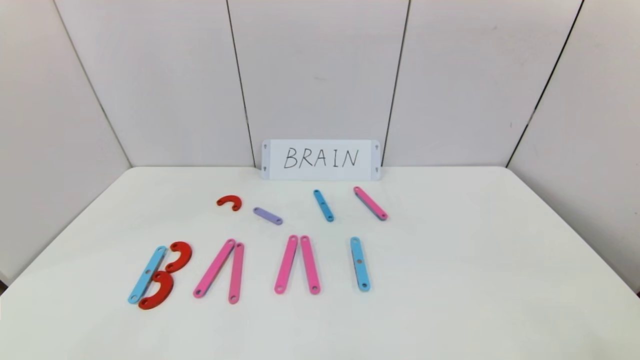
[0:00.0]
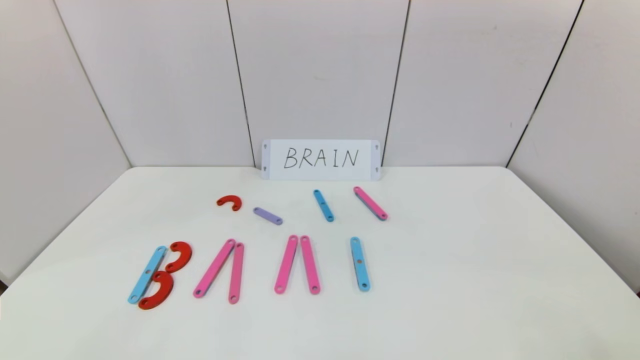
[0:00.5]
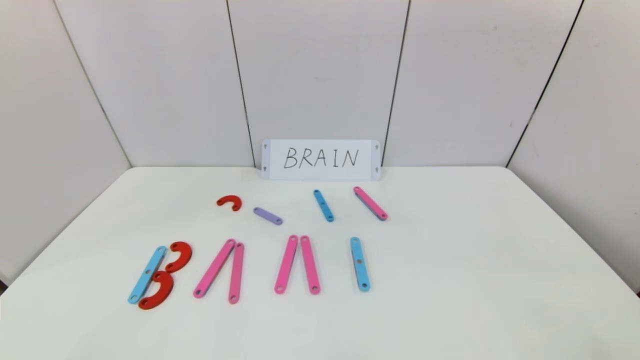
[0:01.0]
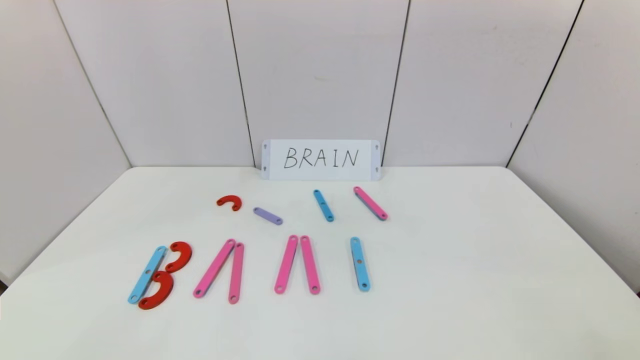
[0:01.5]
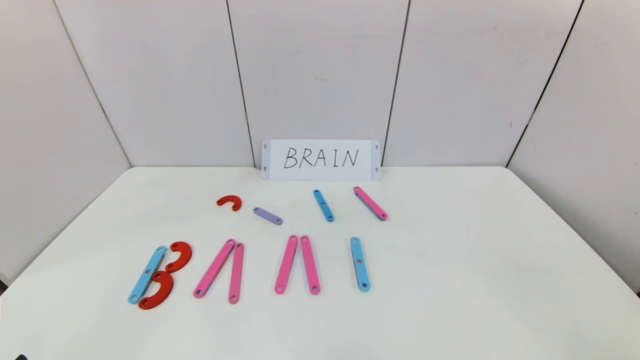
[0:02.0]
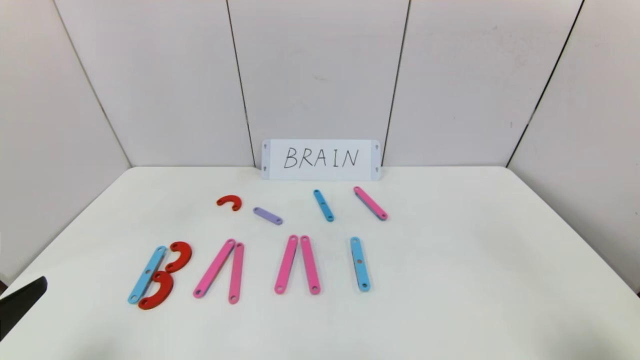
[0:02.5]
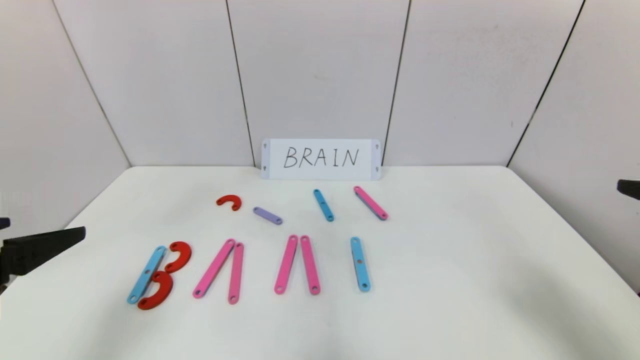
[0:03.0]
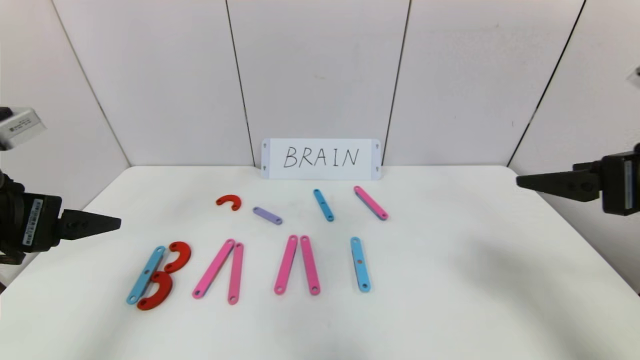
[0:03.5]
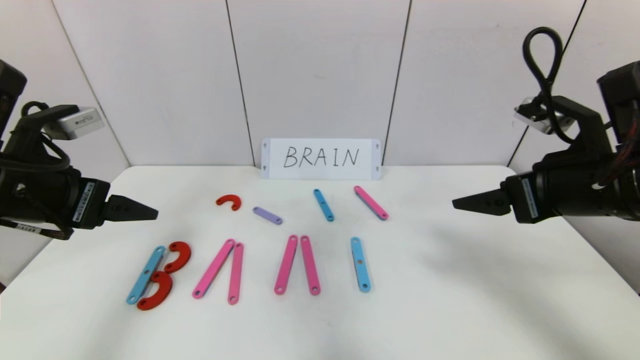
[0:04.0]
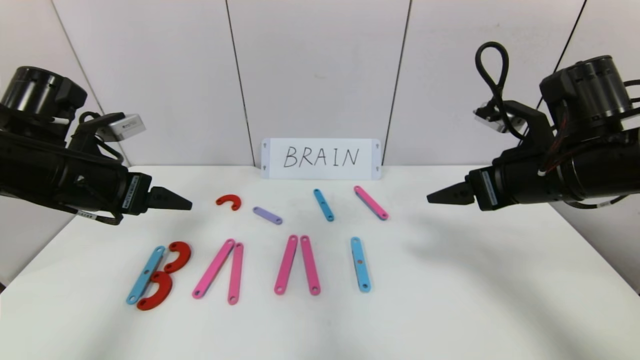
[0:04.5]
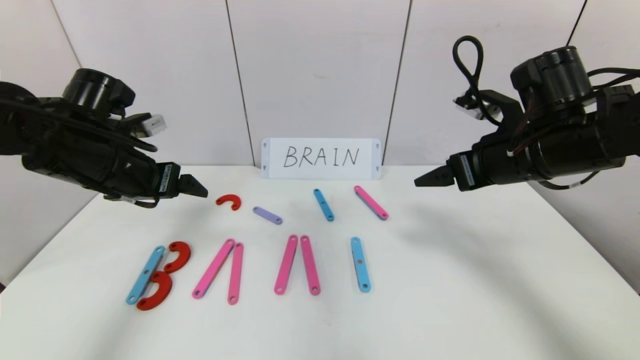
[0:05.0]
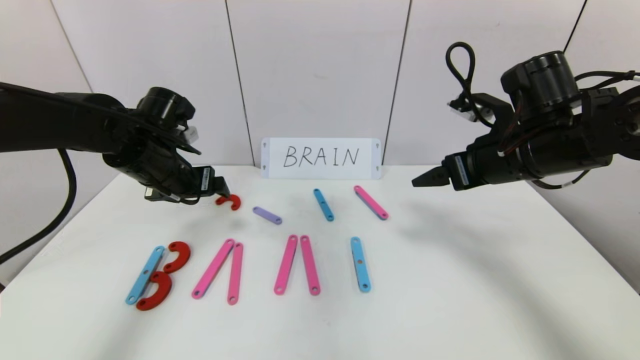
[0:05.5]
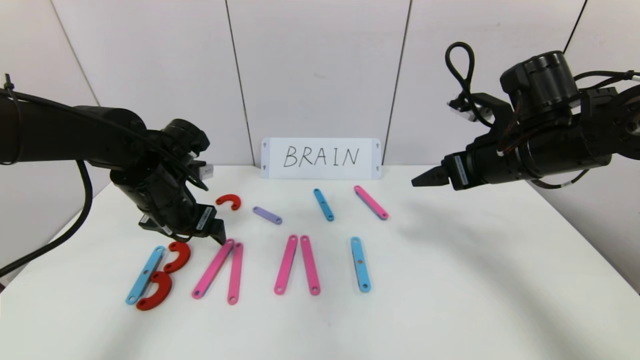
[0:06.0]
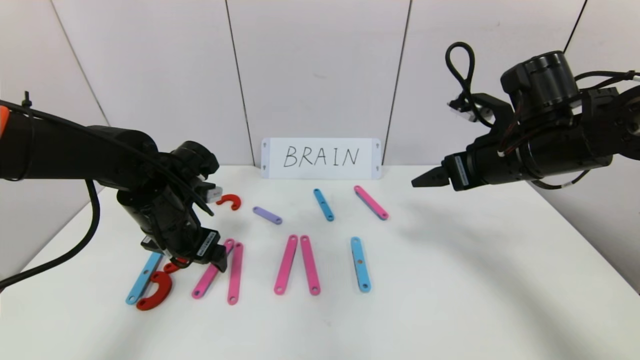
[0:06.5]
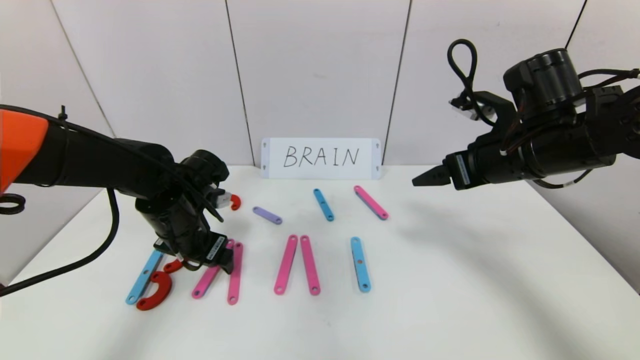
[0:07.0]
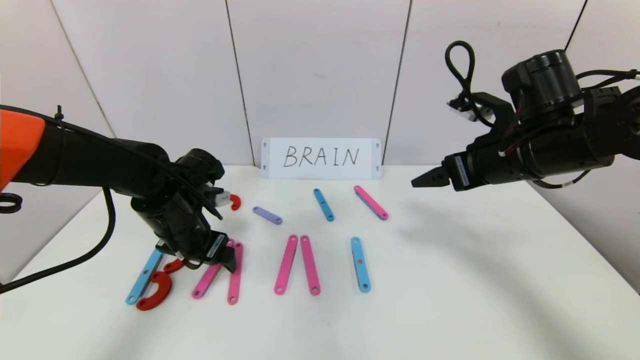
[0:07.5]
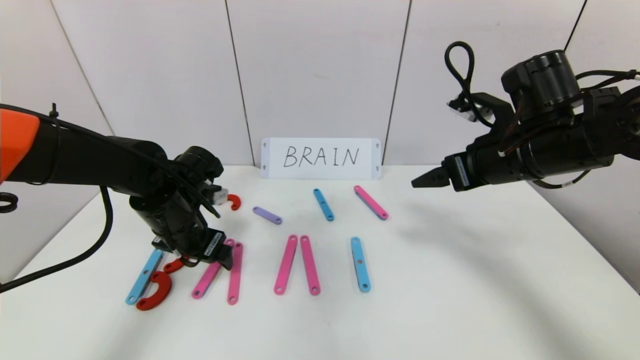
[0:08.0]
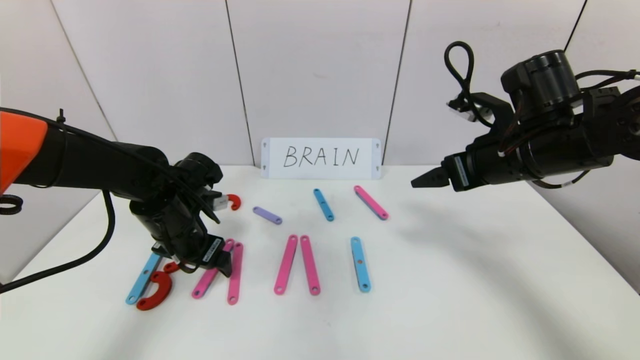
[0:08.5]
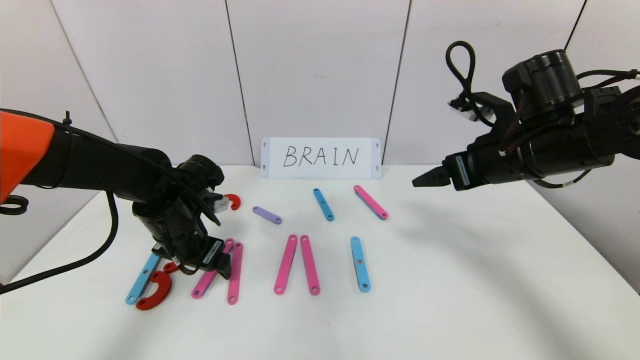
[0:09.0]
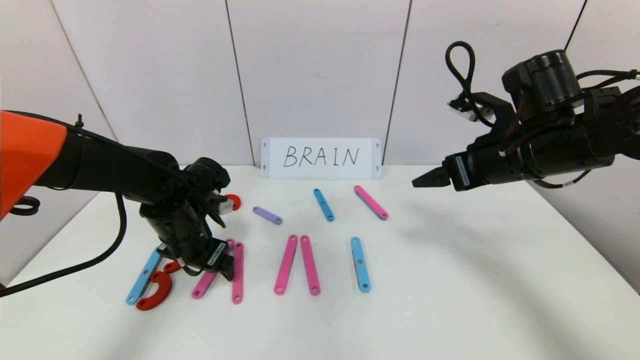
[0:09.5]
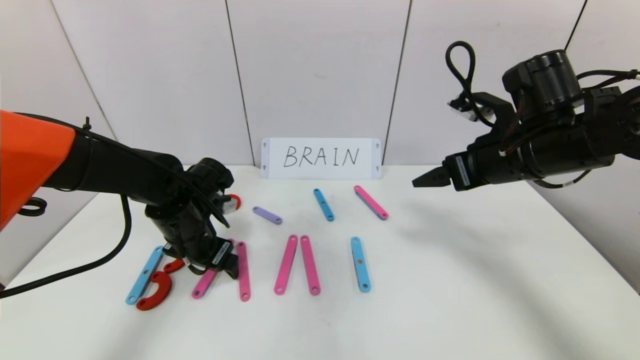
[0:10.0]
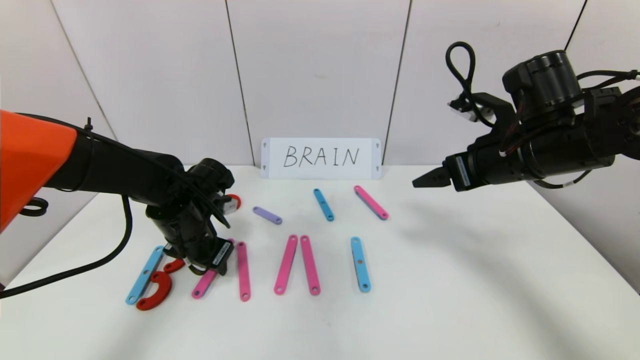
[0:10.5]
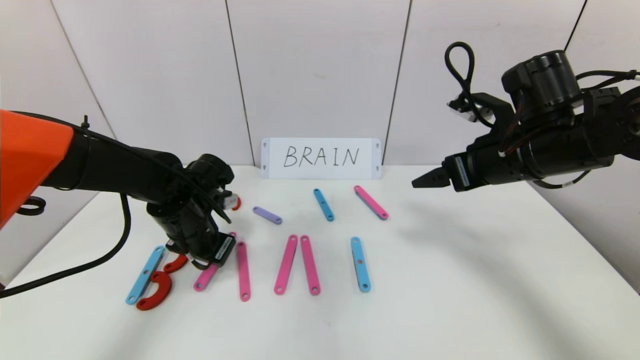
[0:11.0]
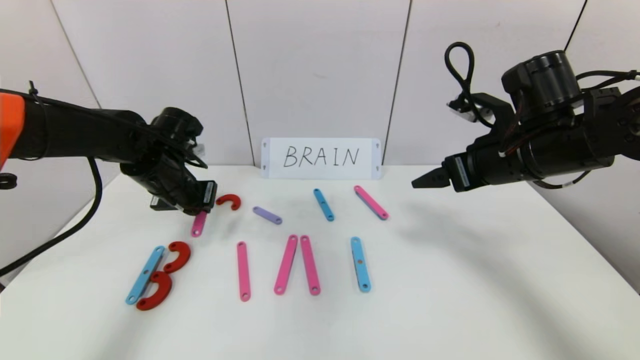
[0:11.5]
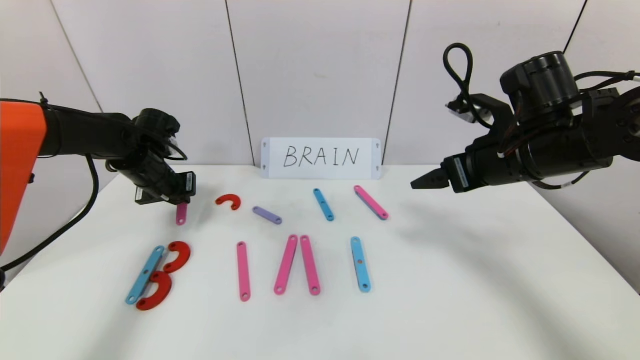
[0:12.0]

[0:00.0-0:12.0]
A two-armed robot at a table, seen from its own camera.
Task of the whole recording: rearrange the word baai as brain.
2.0 to 4.0 s: The right gripper is displaced forward by roughly 25 cm. Meanwhile the left gripper travels forward and upward by roughly 25 cm.
4.0 to 6.0 s: The right gripper moves forward, some 10 cm. Meanwhile the left gripper goes about 15 cm forward, downward and to the right.
6.0 to 10.0 s: The grippers make only small movements.
10.0 to 12.0 s: The left gripper moves to the left and forward, about 15 cm, and closes up.

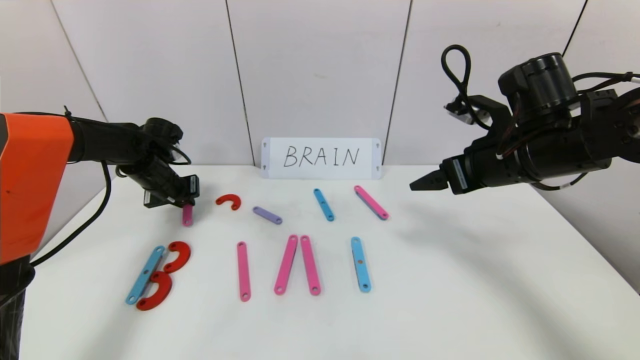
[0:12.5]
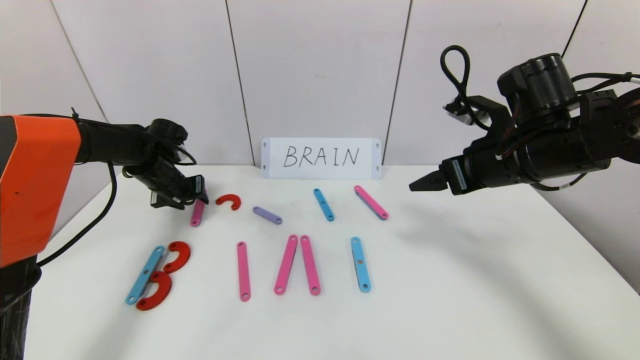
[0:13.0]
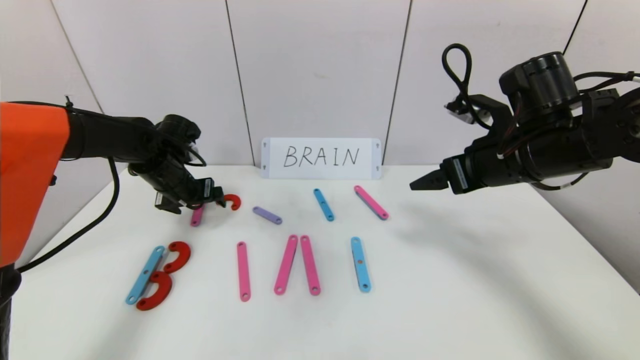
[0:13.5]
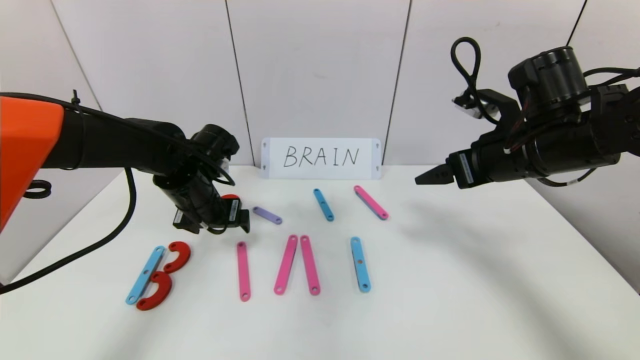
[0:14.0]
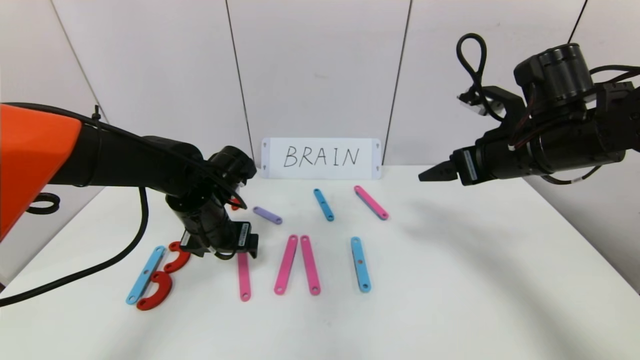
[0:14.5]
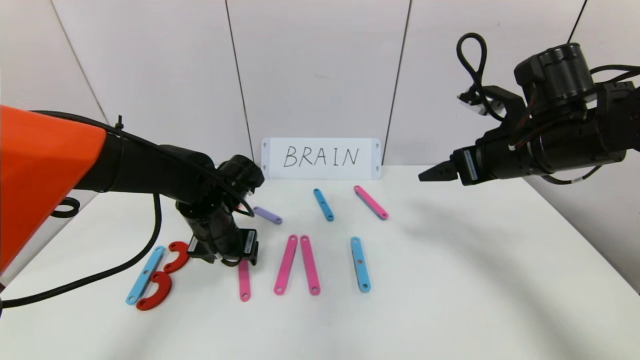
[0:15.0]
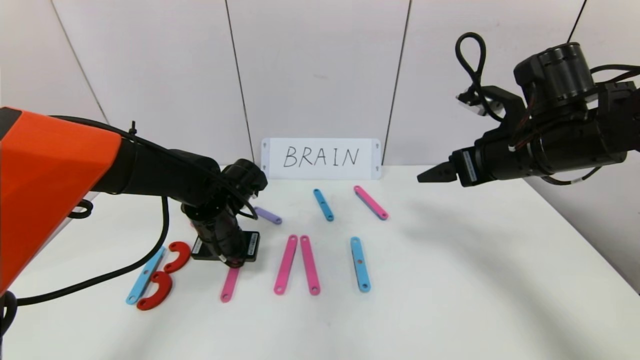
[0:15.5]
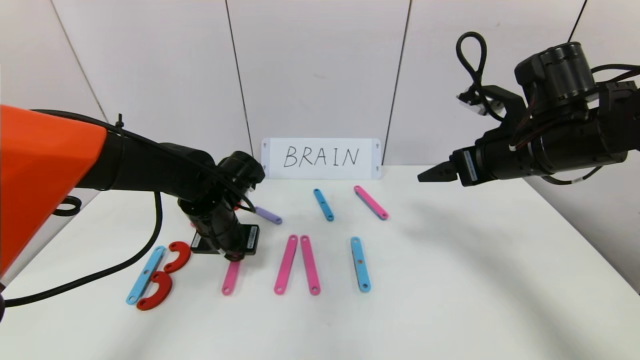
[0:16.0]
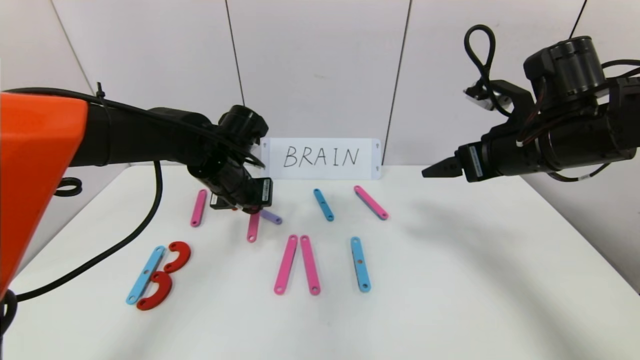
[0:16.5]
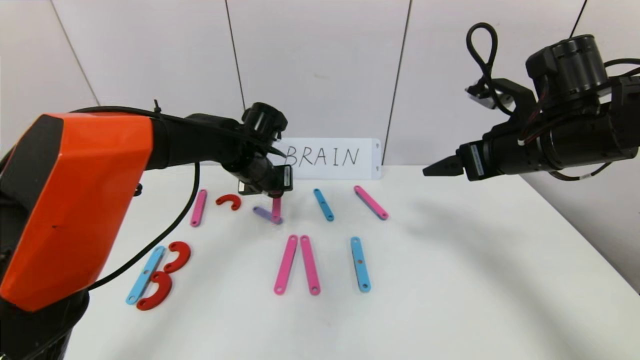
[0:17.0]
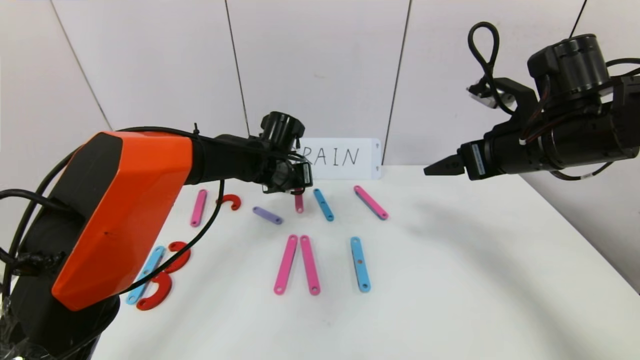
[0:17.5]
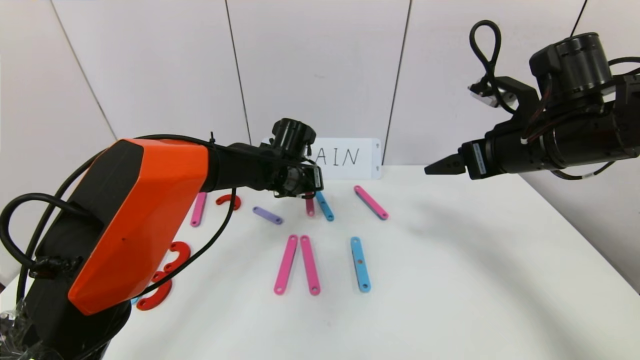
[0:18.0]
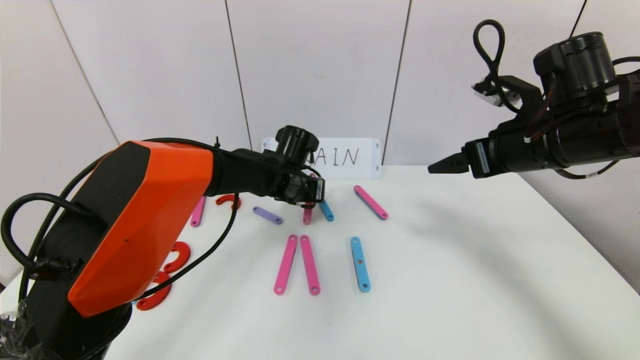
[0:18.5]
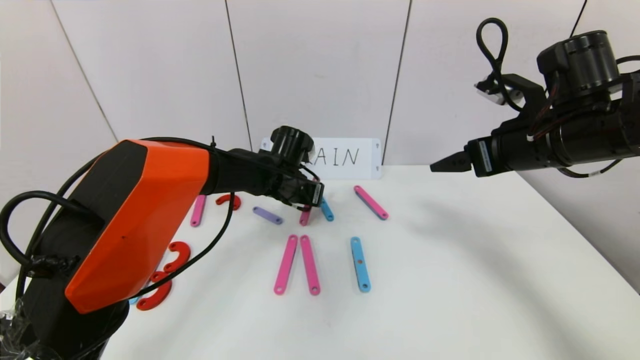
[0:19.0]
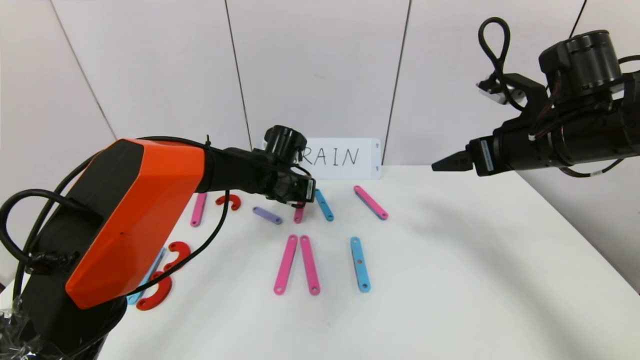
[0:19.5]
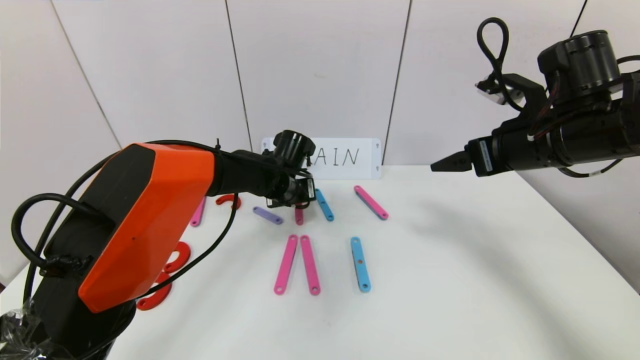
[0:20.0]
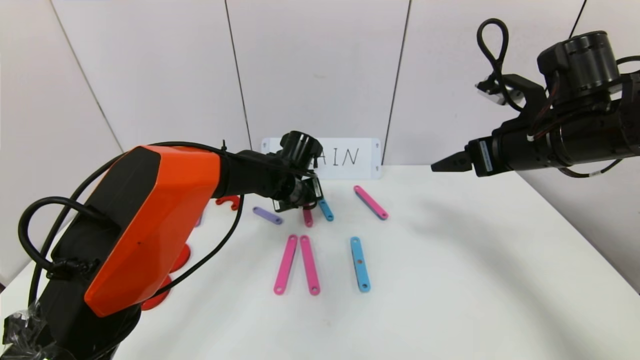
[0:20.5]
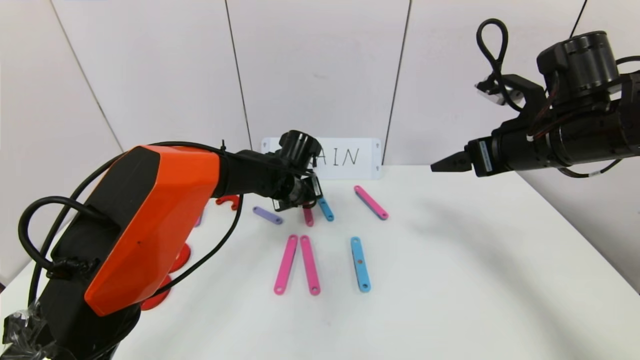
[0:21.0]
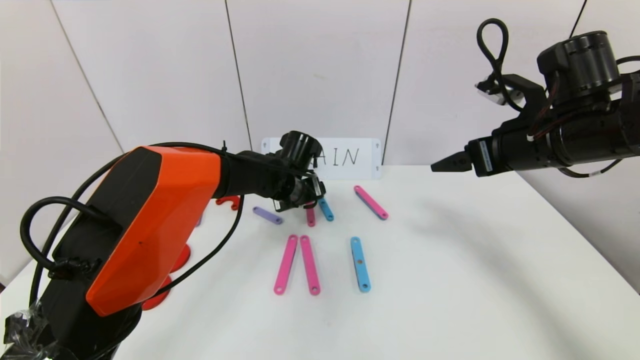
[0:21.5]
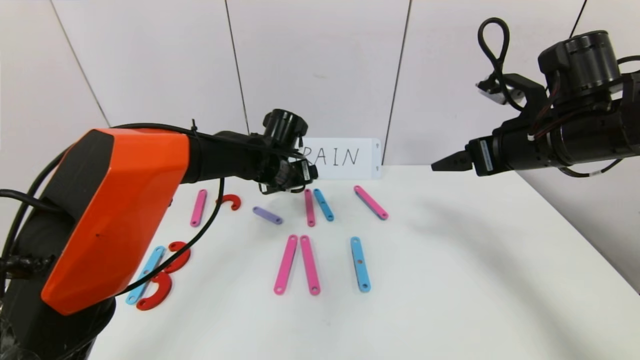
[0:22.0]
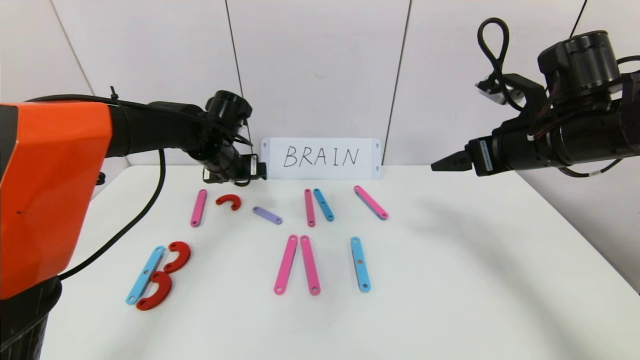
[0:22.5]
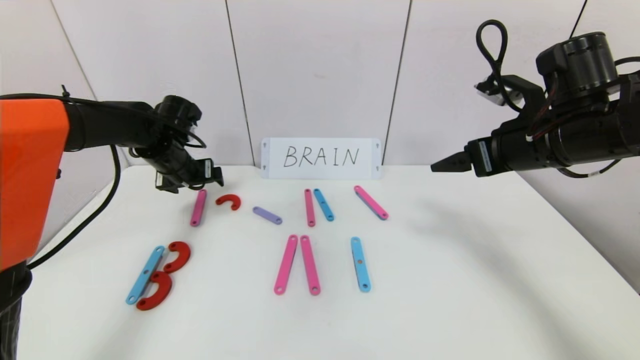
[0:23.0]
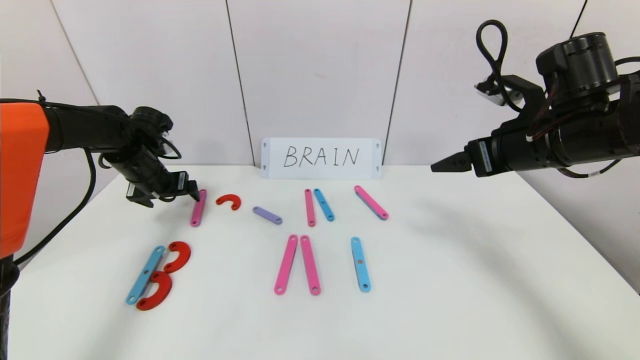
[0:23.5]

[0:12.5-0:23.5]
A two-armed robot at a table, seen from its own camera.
Task of the whole recording: rearrange the word baai as brain.
Step, 12.5 to 22.0 s: Disassemble the second character A.
12.5 to 14.5 s: The left gripper moves to the right and backward, approximately 20 cm, and opens up.
14.5 to 16.0 s: The left gripper closes its fingers.
16.0 to 18.0 s: The left gripper moves to the right and forward, roughly 15 cm.
20.0 to 21.5 s: The left gripper opens.
21.5 to 23.5 s: The left gripper shifts some 25 cm to the left.
